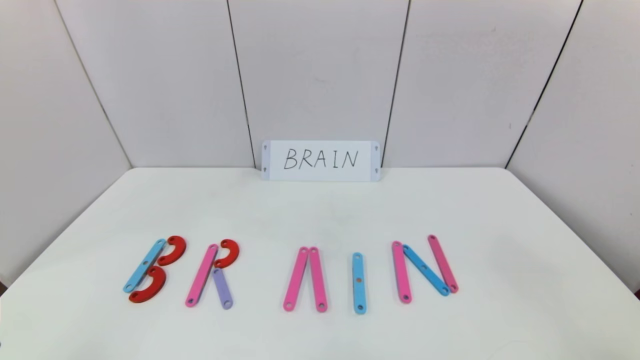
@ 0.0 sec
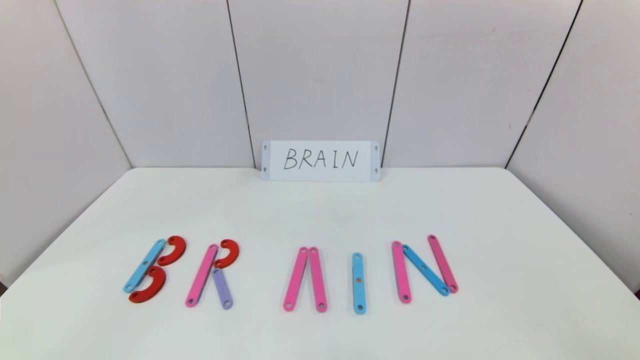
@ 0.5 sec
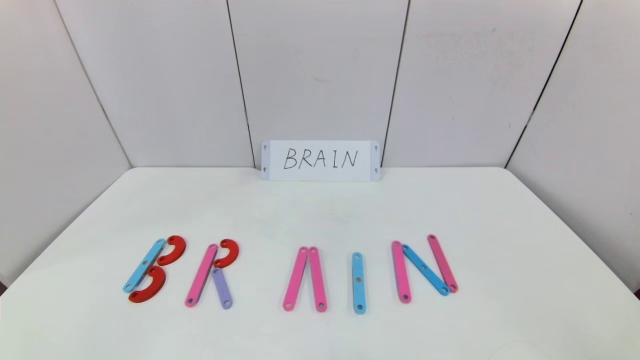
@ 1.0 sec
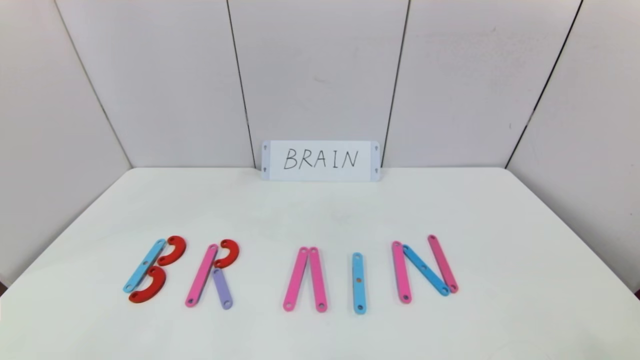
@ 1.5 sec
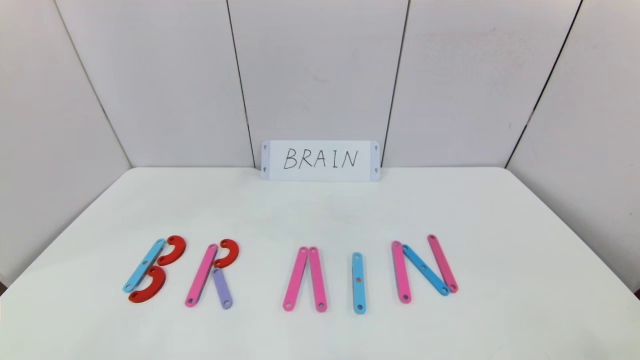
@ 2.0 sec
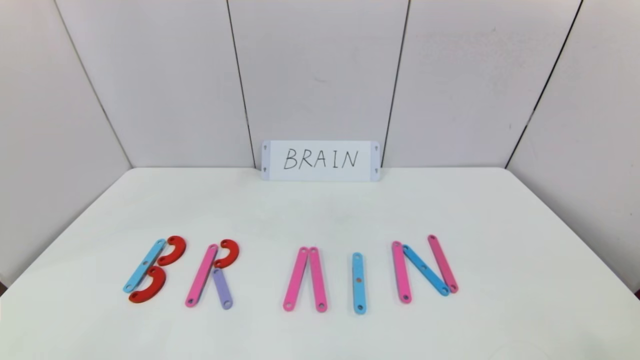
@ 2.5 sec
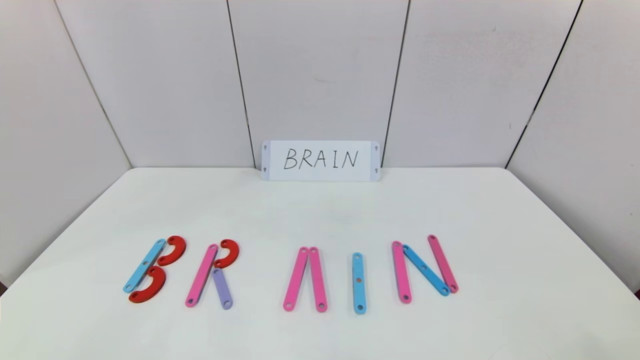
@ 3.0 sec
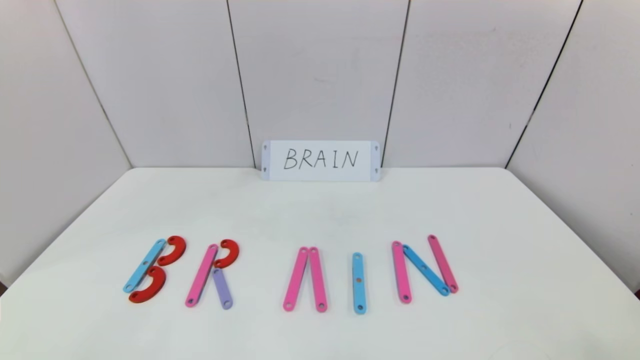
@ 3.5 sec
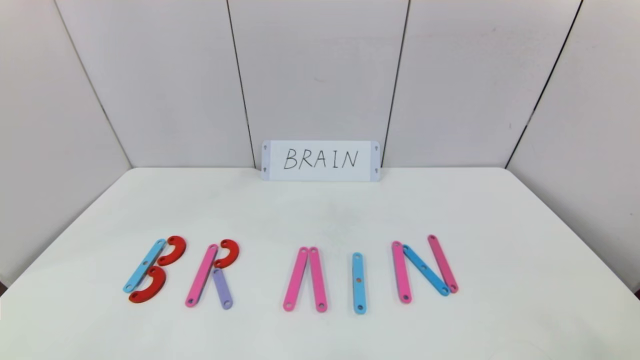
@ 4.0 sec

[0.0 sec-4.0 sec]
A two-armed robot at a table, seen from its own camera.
Task of the whole recording: rearrange the word baai as brain.
2.0 sec to 4.0 sec: Both grippers stay about where they are.
